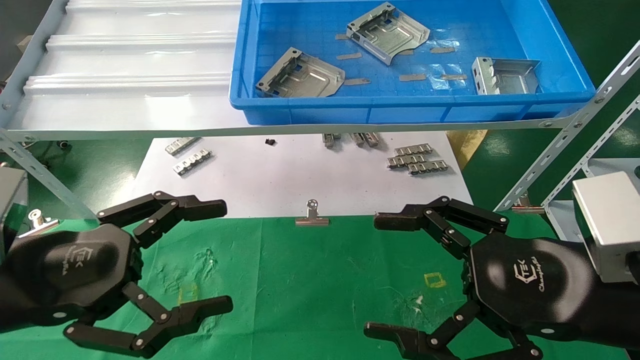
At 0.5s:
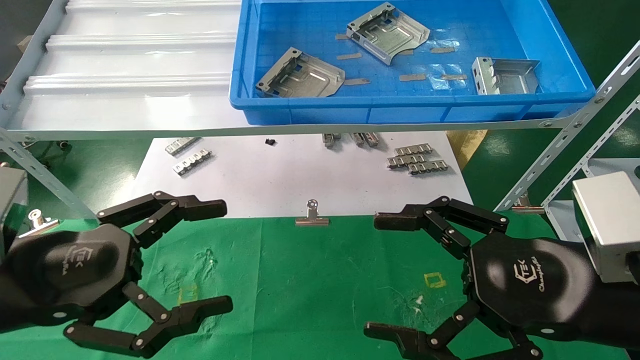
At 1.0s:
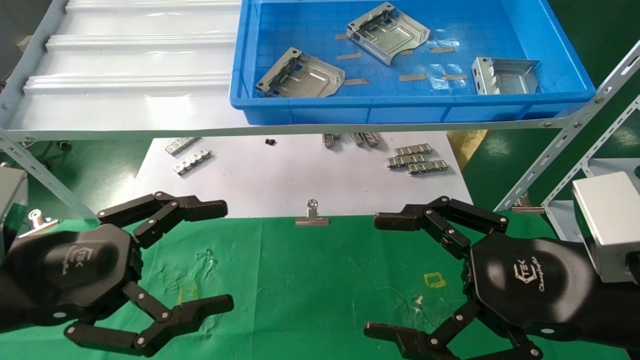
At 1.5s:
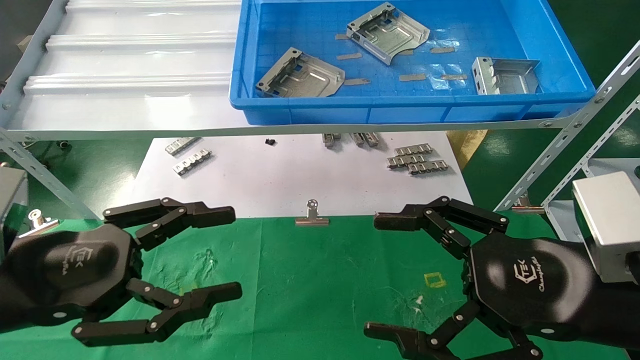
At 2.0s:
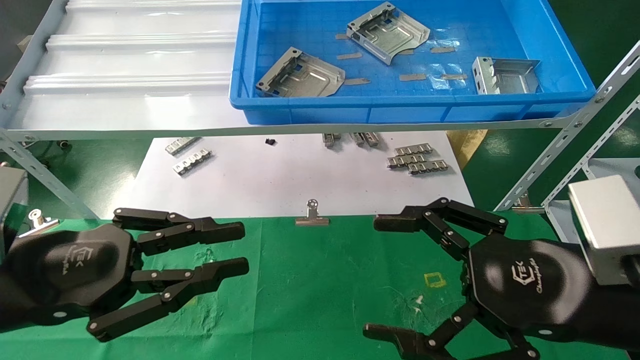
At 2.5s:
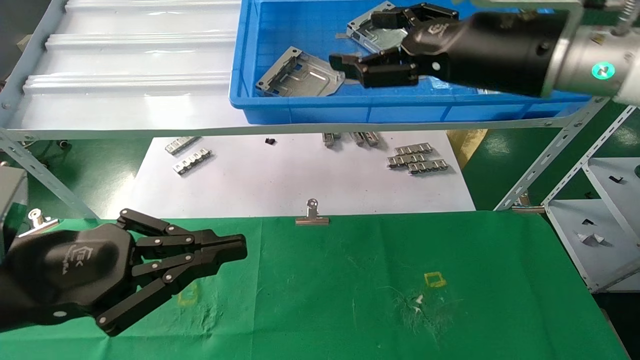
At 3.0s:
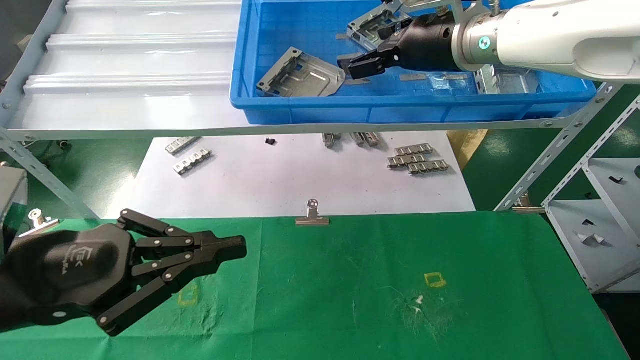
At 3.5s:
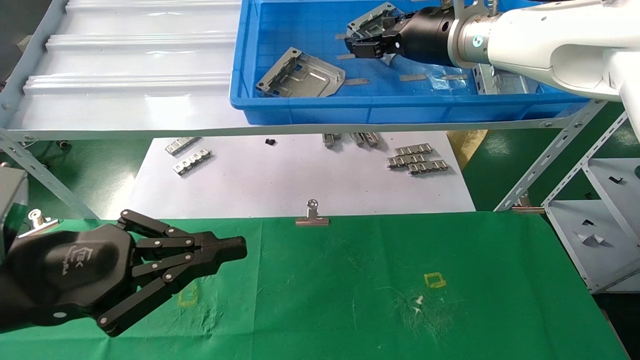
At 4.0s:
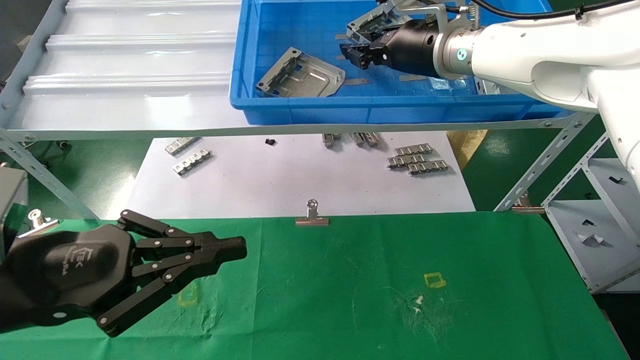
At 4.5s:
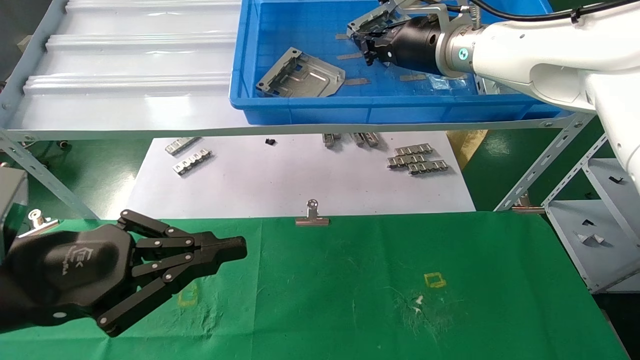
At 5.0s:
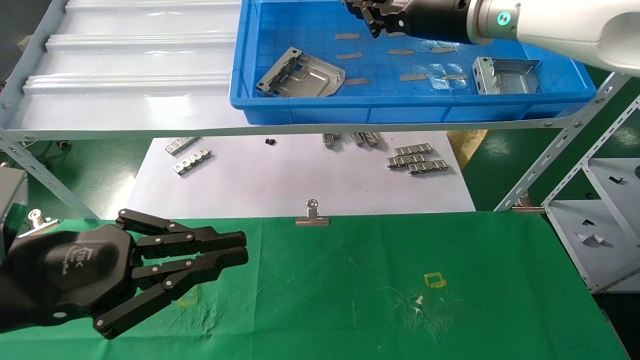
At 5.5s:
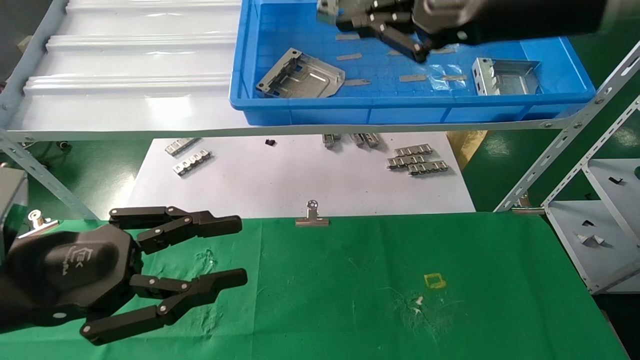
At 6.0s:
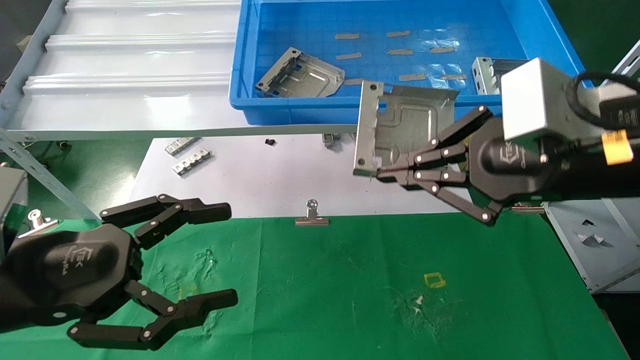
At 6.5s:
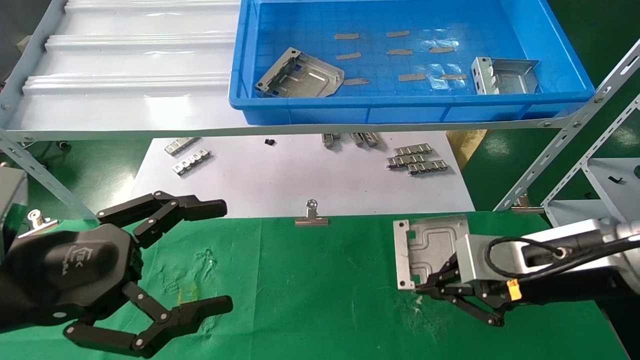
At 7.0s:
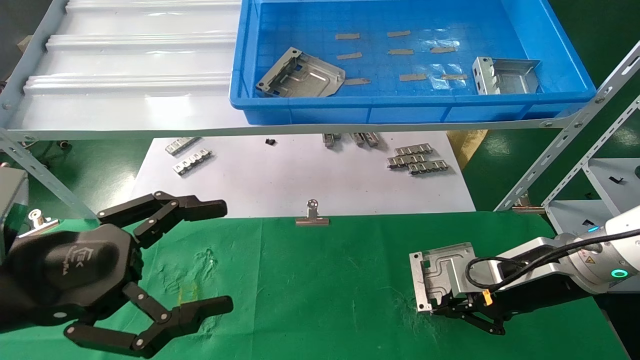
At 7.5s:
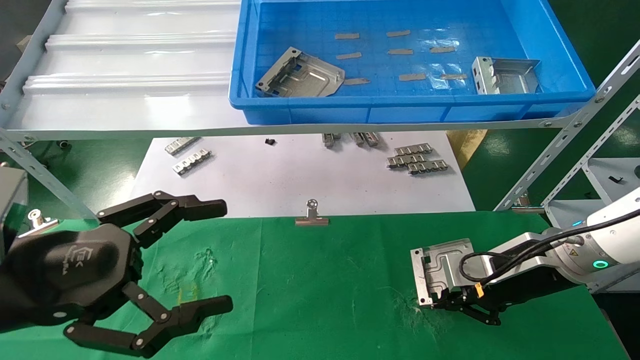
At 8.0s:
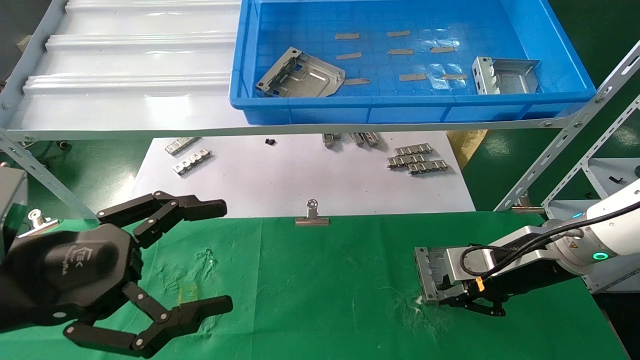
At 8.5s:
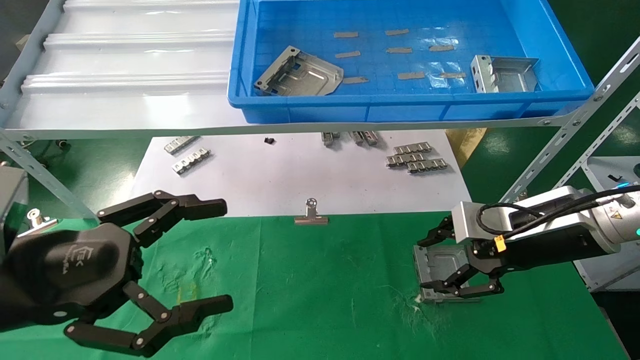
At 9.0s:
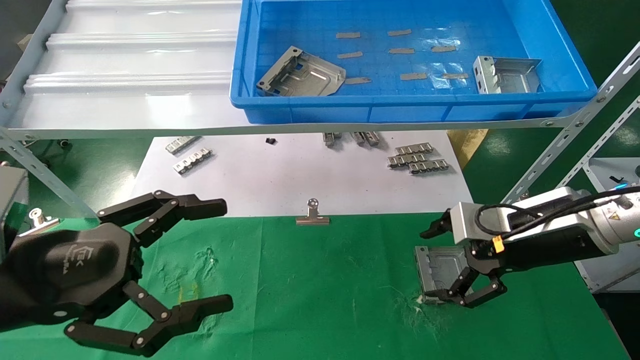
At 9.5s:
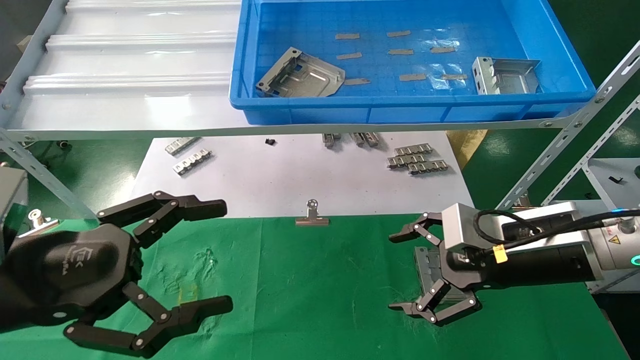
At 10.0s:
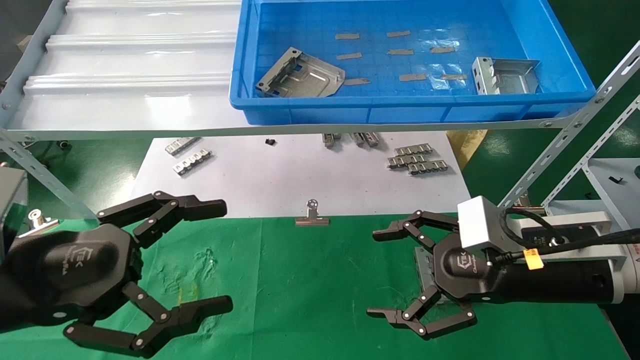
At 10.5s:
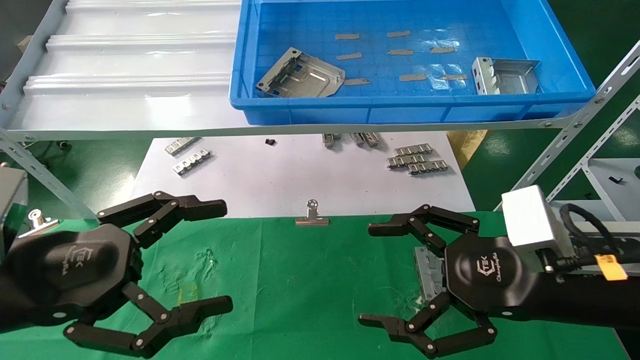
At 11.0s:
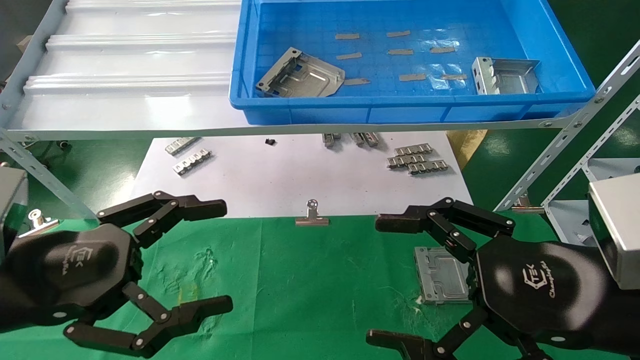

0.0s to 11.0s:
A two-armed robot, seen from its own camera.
Task of the whole recording: use the mechanical arm to pick up the parts and place them on the table.
Step, 2.0s to 6.0s: Pick up the hard drive bracket from the feeding area.
Step, 6.5s to 8.5s: Place the hard drive bracket into the box.
0.0s to 2.0s: The left gripper closes.
2.0s to 3.5s: The left gripper closes its fingers. Meanwhile the right gripper travels forward and upward by approximately 30 cm.
3.5s to 5.5s: The right gripper goes approximately 15 cm backward, and closes up.
5.5s to 7.5s: The right gripper is displaced downward by some 25 cm; the left gripper opens its fingers.
7.5s to 9.0s: The right gripper moves upward, some 5 cm, and opens up.
9.0s to 11.0s: The right gripper heads backward, covering about 15 cm.
